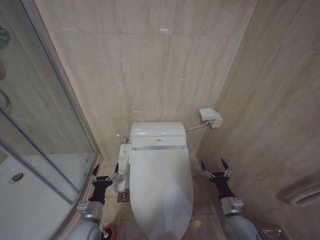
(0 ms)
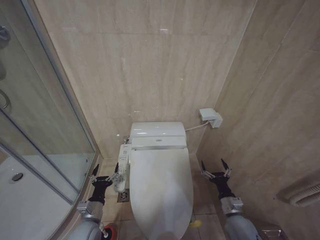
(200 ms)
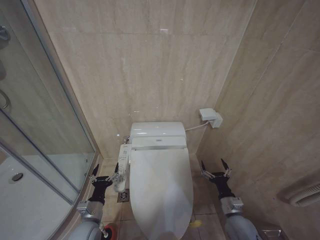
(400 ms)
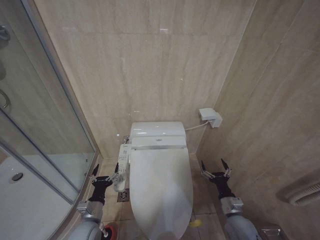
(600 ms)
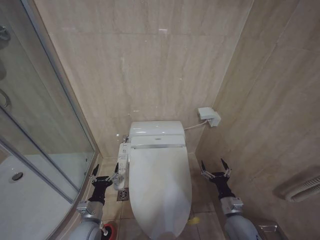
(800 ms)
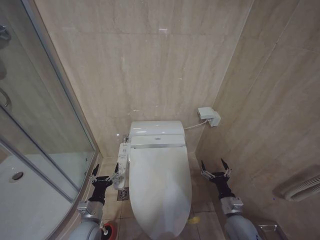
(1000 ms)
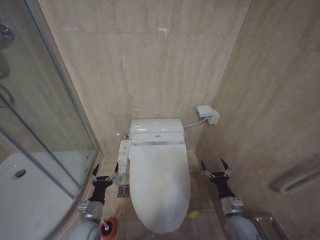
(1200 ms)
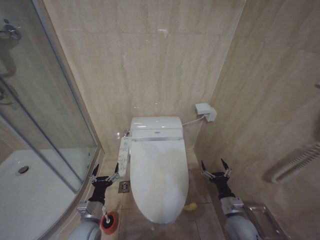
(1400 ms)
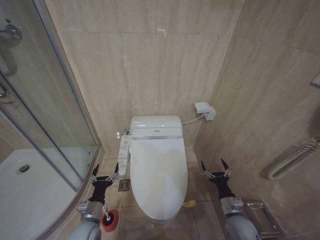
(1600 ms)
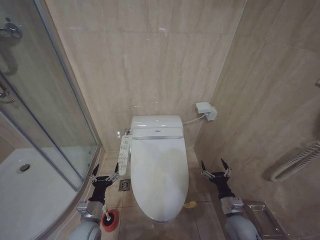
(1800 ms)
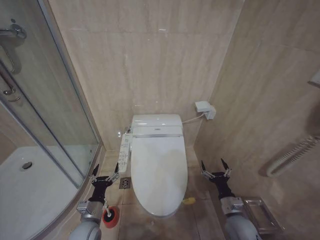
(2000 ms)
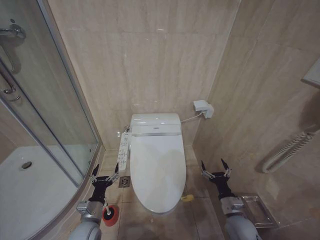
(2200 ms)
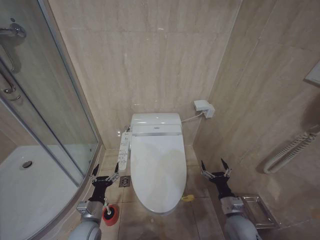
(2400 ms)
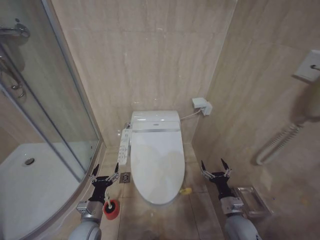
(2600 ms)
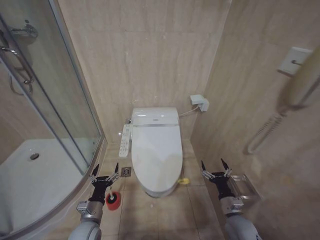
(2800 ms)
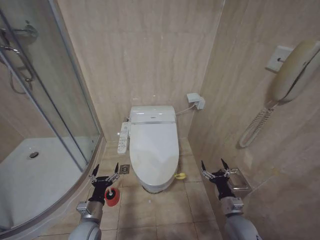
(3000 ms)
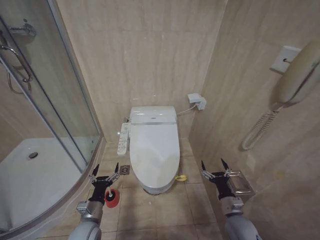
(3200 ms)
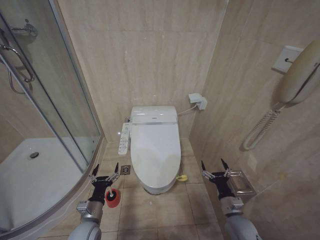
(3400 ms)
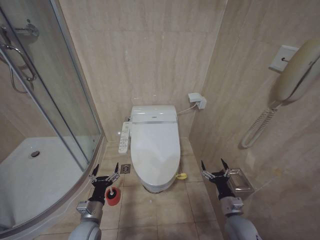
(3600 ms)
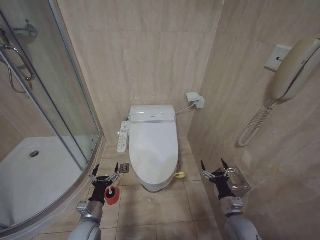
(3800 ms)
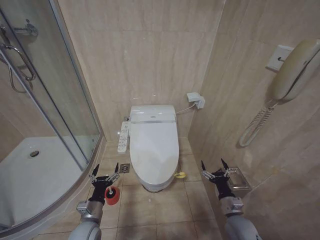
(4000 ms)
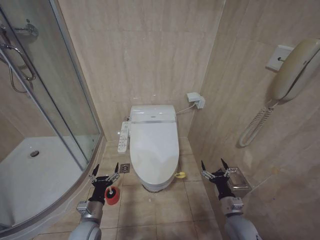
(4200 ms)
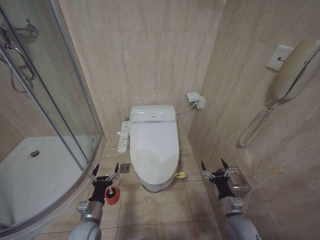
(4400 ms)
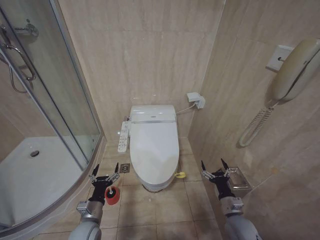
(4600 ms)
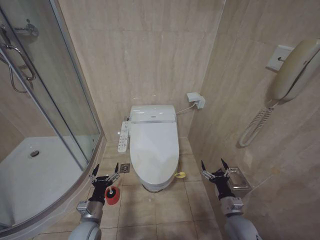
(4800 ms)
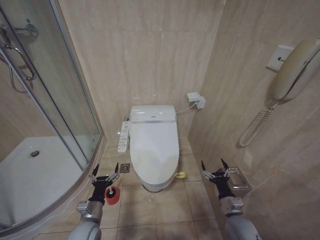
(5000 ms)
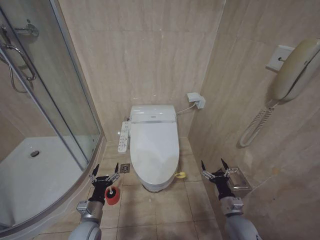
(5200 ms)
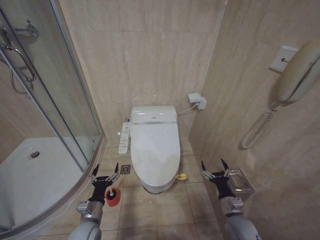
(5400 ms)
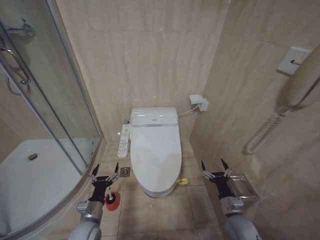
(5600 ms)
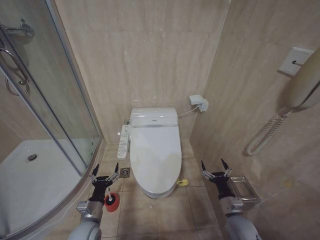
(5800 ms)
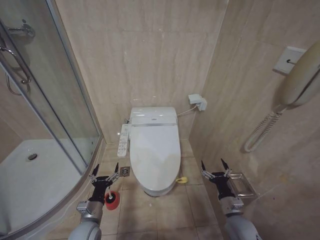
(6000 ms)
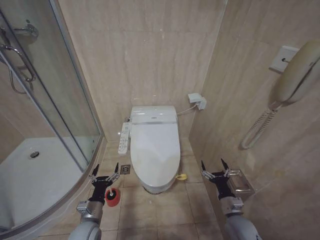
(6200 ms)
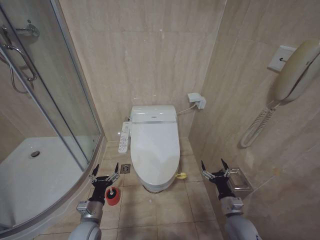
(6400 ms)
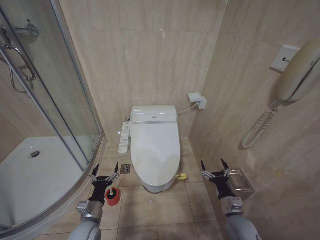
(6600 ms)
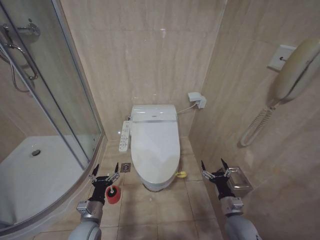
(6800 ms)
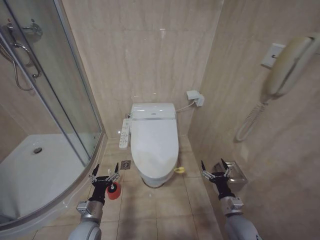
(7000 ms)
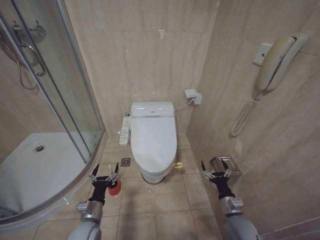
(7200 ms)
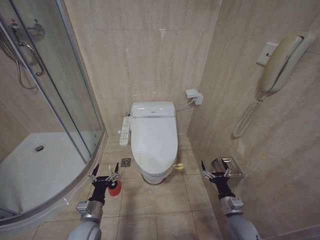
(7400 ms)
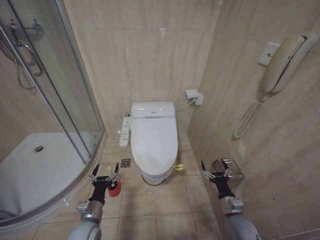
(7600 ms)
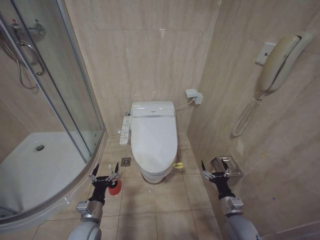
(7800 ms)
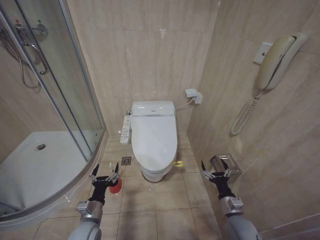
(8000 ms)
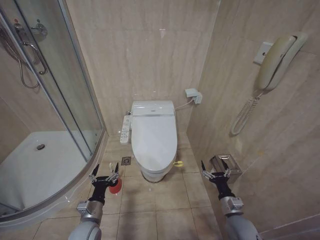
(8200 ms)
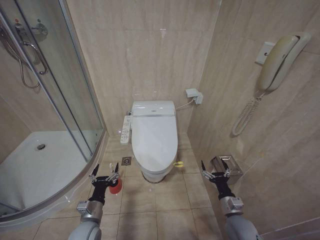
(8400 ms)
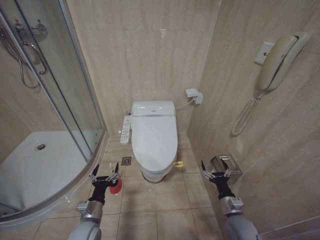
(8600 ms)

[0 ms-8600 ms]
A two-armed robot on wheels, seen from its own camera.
Task of the whole recording: Open the toilet lid, clean the toilet bowl with a toilet brush, close the toilet lid, and flush.
0 ms to 8600 ms: Neither gripper changes place.
